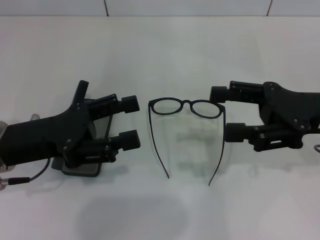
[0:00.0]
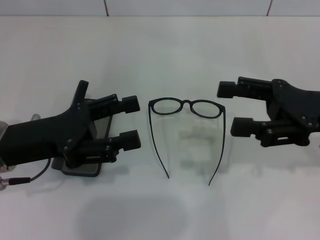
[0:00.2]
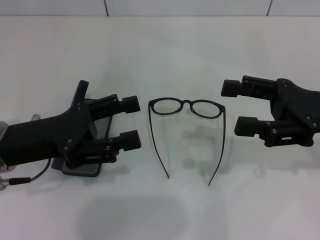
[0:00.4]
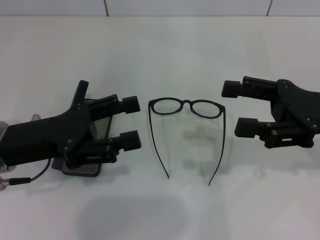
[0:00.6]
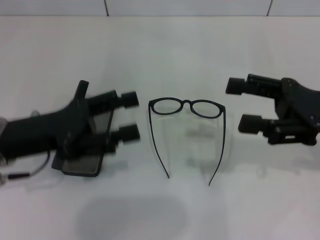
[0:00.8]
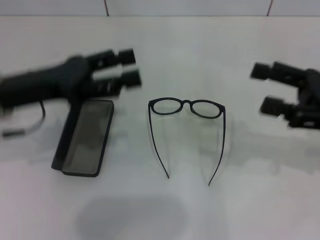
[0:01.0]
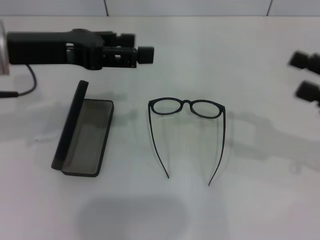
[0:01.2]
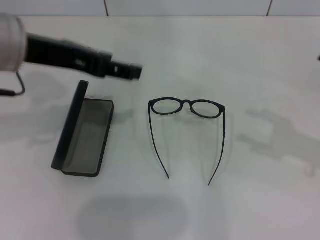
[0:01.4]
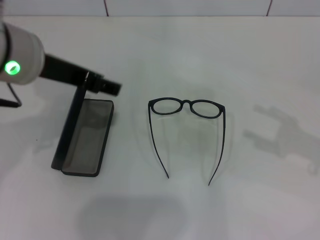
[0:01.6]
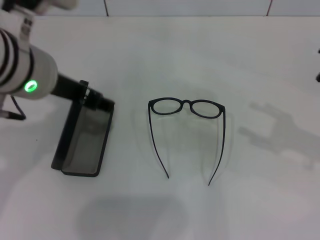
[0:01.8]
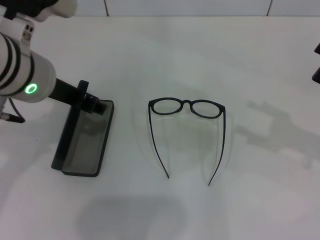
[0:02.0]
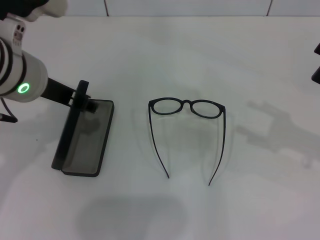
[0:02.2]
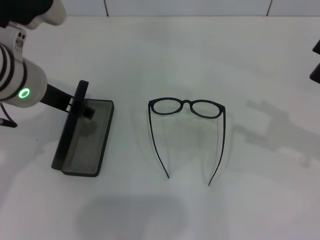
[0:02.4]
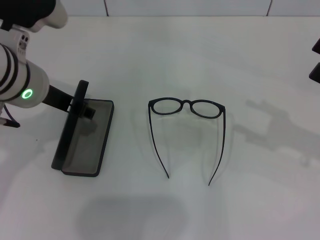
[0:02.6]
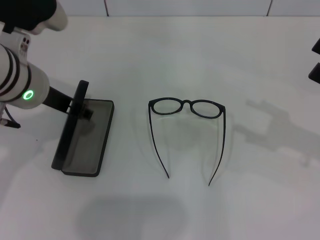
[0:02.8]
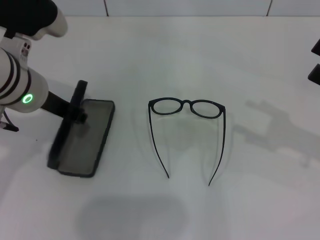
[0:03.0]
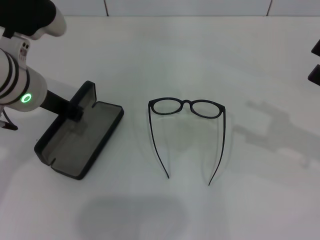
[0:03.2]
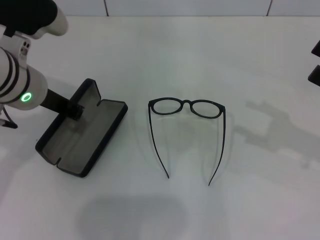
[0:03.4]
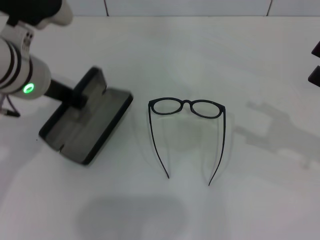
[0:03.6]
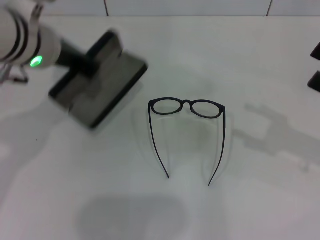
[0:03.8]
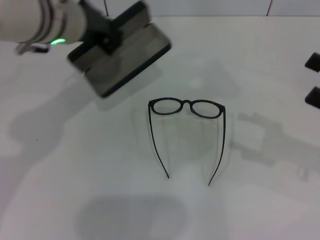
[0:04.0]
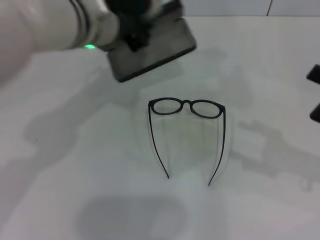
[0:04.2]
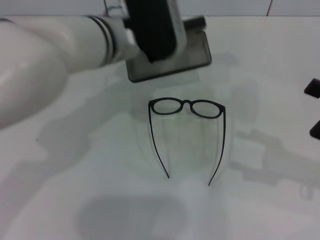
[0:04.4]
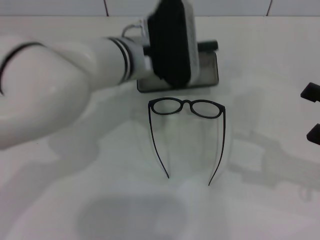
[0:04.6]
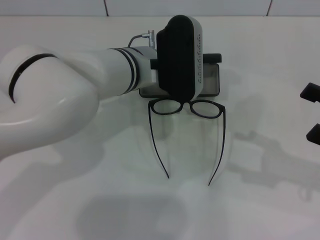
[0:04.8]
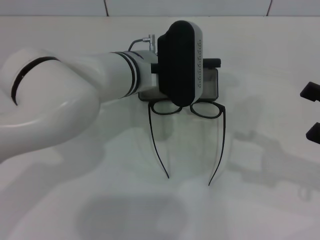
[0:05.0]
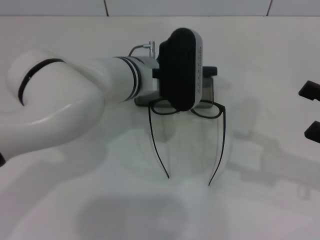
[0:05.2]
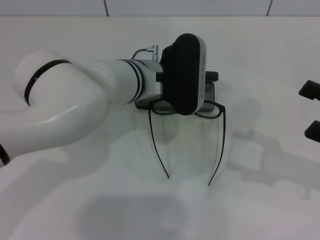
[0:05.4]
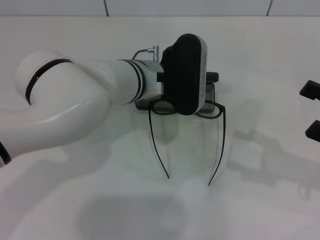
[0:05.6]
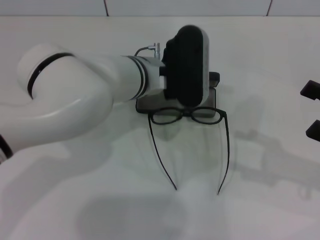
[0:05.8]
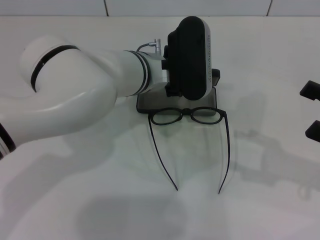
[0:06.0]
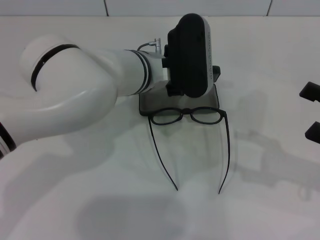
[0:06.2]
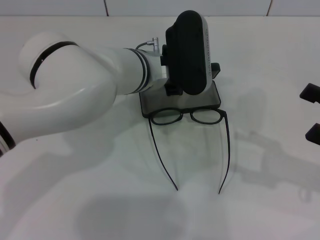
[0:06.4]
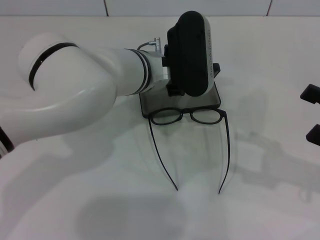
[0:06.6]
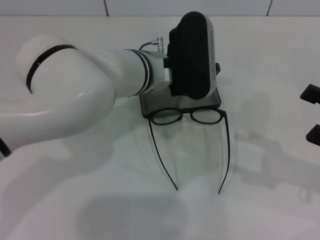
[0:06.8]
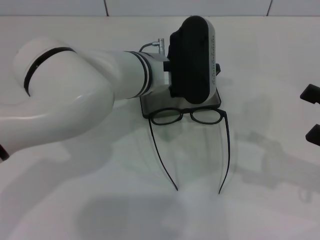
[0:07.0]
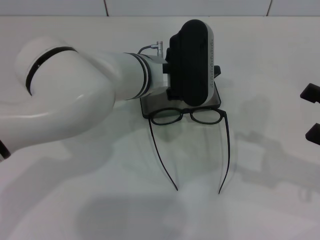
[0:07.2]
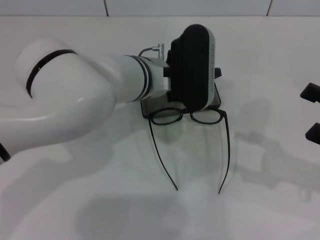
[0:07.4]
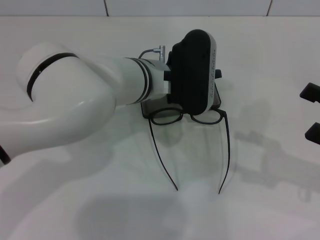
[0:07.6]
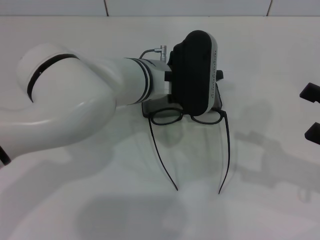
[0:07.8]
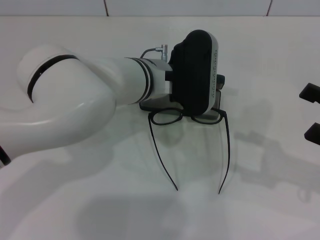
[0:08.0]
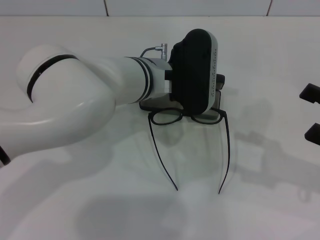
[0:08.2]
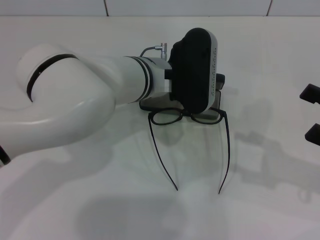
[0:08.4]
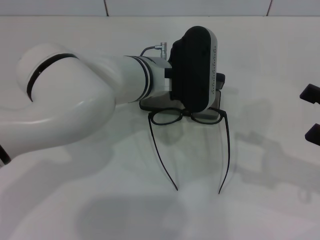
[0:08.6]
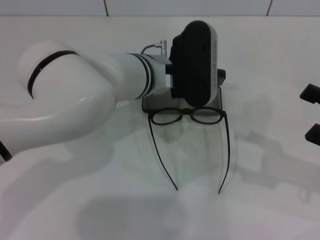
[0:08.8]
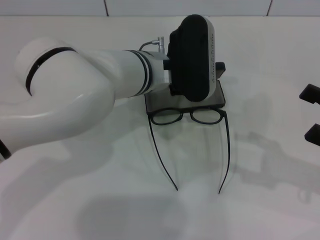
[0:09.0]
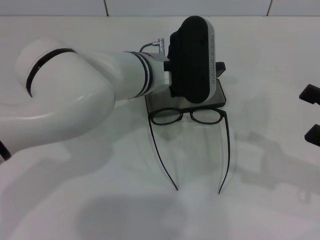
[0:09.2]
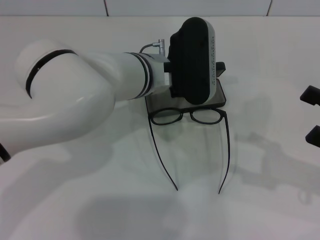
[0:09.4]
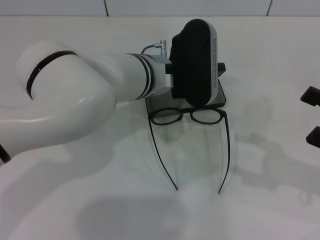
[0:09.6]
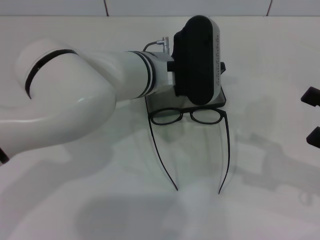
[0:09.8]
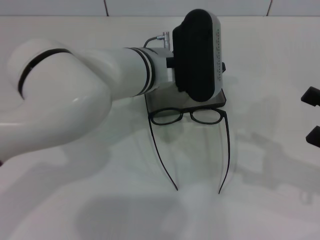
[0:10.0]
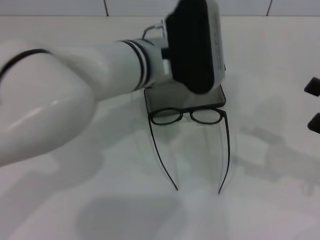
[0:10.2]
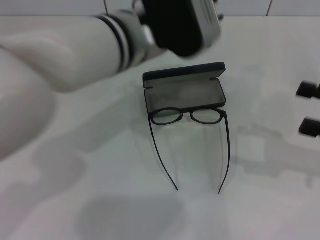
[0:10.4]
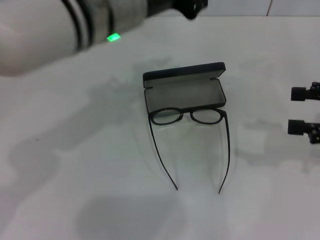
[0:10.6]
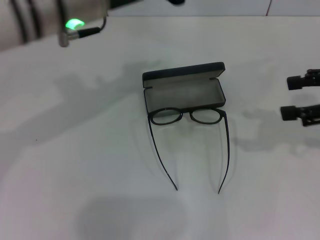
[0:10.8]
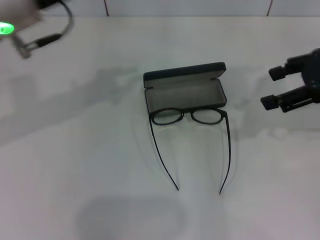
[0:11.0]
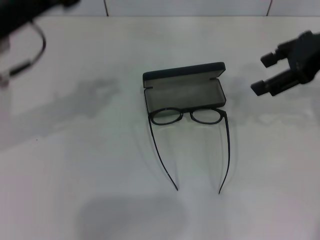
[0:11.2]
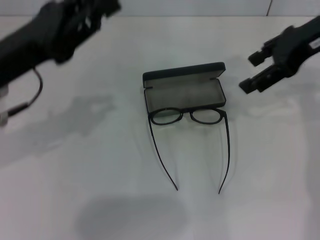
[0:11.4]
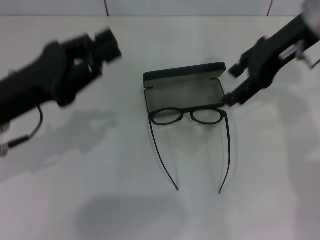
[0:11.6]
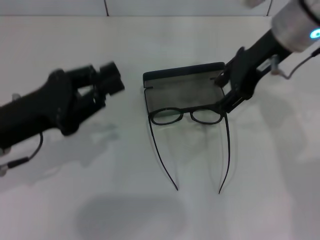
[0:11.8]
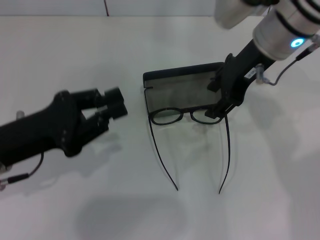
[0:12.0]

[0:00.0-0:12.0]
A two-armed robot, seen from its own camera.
Step, 0:00.0 to 0:03.2: Grab the glasses case with your left hand.
Step, 0:03.4 to 0:06.8: Place the glasses case in the center of the table with your left hand.
0:00.0 to 0:01.6: The left gripper goes roughly 15 cm upward, to the right and forward. The right gripper moves to the right, some 10 cm.
0:01.6 to 0:03.0: The left gripper goes some 5 cm downward, and closes its fingers.
0:03.0 to 0:04.4: The left gripper goes roughly 10 cm to the right, and closes up.
0:04.4 to 0:06.0: The left gripper ends up some 5 cm from where it was.
0:06.0 to 0:09.0: The grippers make only small movements.
0:09.0 to 0:10.4: The left gripper shifts some 10 cm upward.
0:10.4 to 0:12.0: The left gripper heads to the left, downward and backward, covering roughly 25 cm; the right gripper moves to the left and forward, some 25 cm.

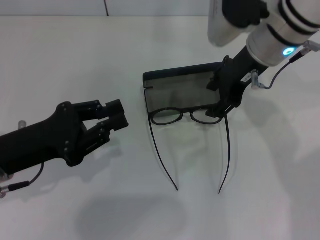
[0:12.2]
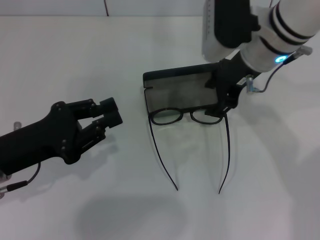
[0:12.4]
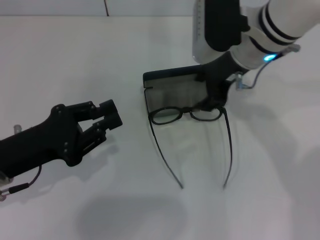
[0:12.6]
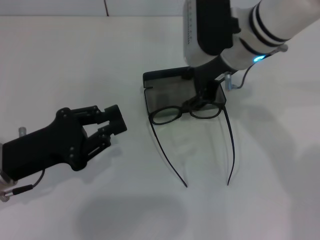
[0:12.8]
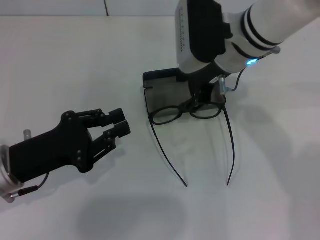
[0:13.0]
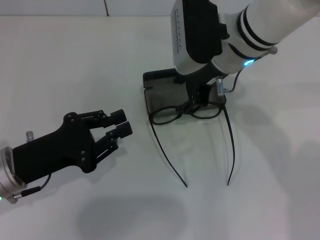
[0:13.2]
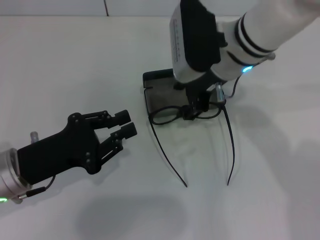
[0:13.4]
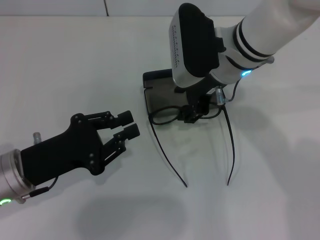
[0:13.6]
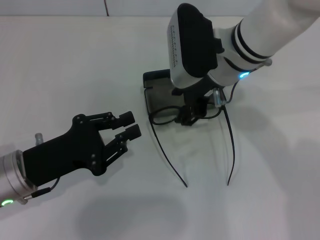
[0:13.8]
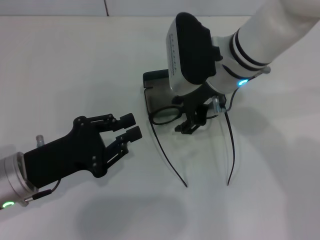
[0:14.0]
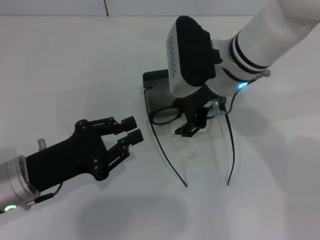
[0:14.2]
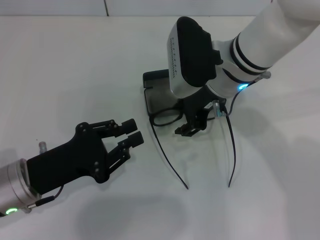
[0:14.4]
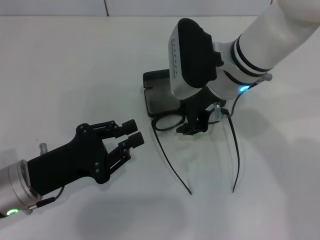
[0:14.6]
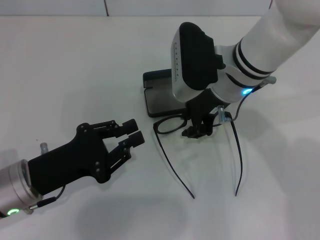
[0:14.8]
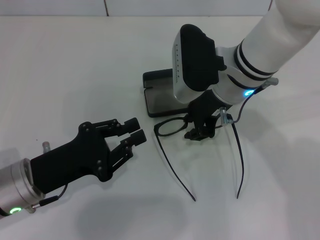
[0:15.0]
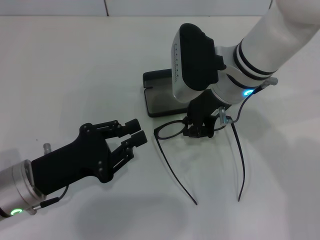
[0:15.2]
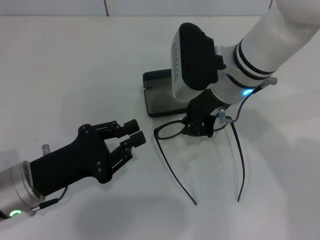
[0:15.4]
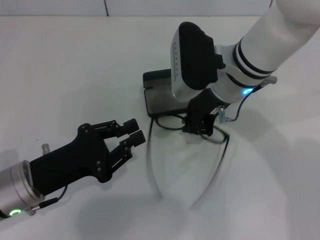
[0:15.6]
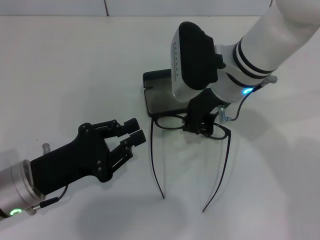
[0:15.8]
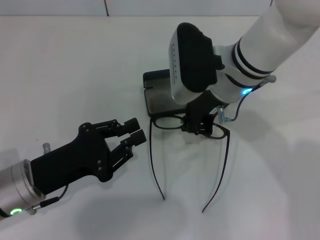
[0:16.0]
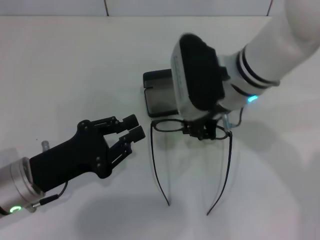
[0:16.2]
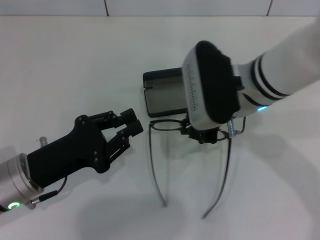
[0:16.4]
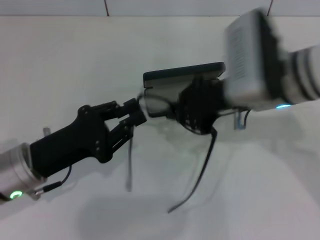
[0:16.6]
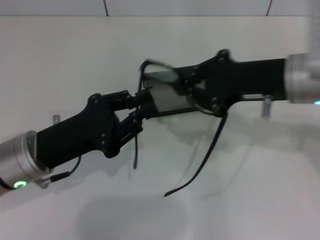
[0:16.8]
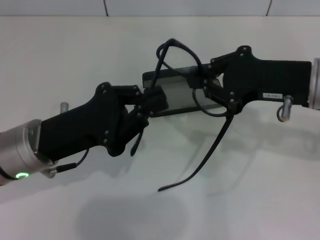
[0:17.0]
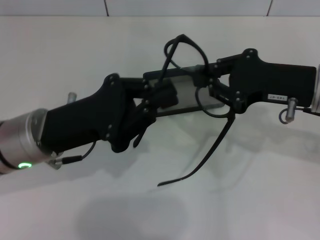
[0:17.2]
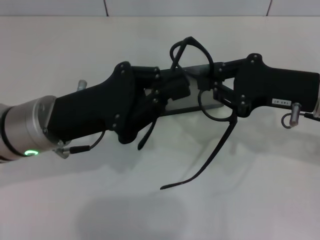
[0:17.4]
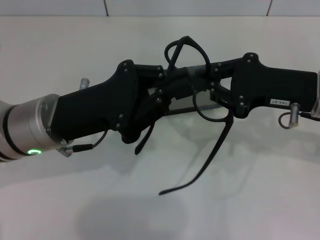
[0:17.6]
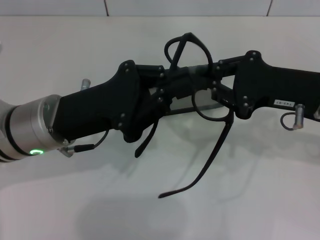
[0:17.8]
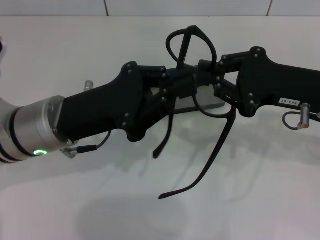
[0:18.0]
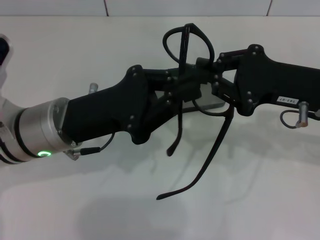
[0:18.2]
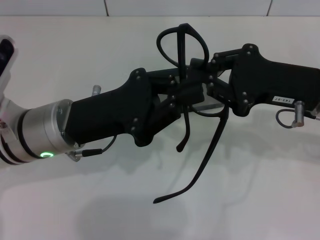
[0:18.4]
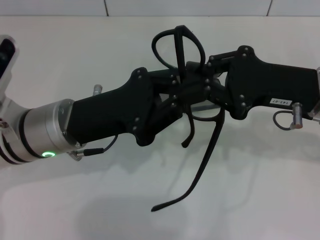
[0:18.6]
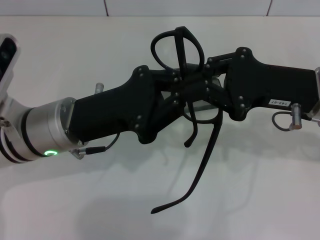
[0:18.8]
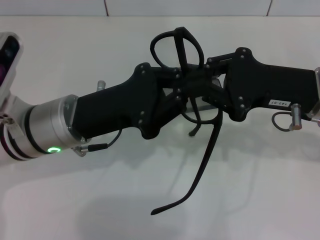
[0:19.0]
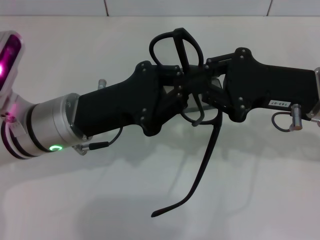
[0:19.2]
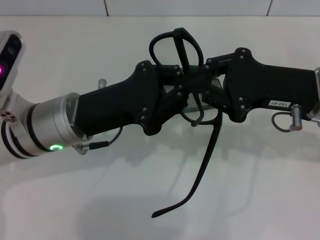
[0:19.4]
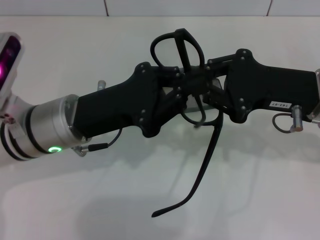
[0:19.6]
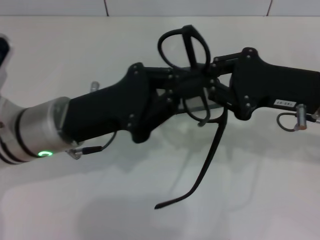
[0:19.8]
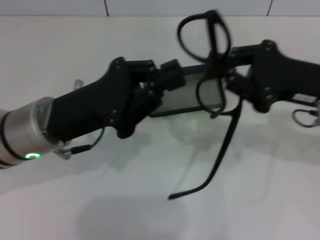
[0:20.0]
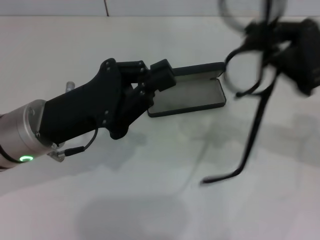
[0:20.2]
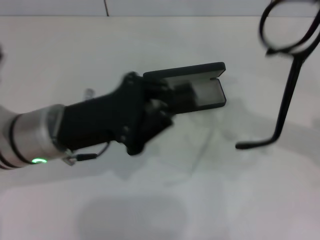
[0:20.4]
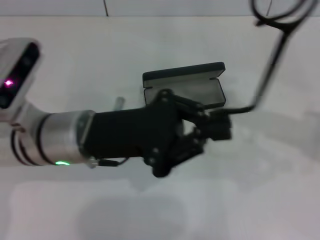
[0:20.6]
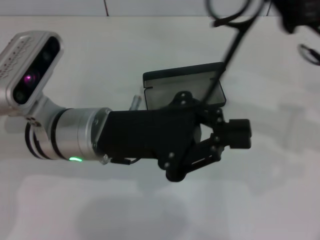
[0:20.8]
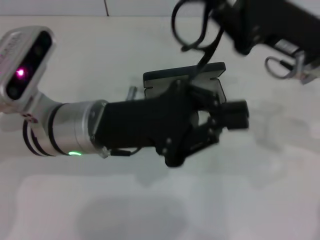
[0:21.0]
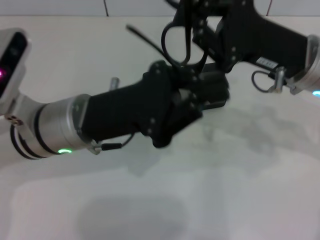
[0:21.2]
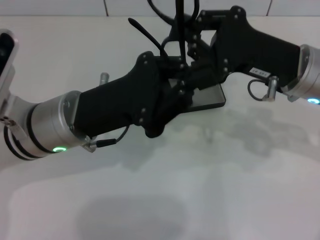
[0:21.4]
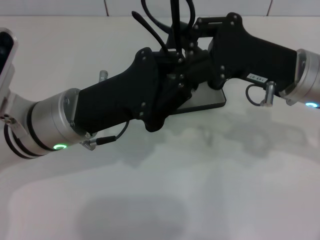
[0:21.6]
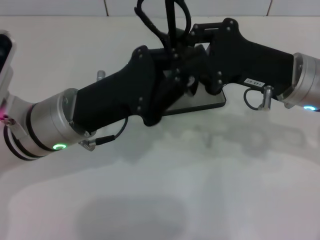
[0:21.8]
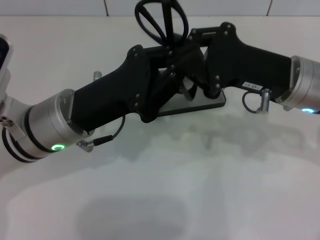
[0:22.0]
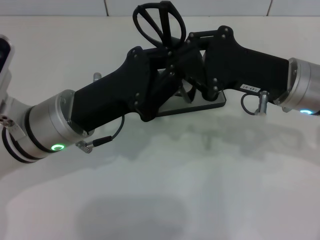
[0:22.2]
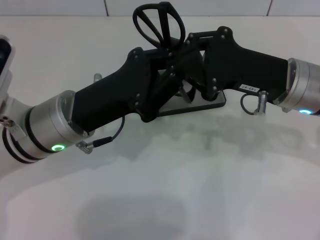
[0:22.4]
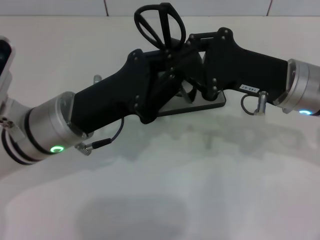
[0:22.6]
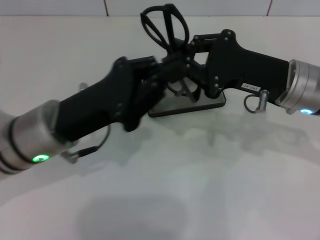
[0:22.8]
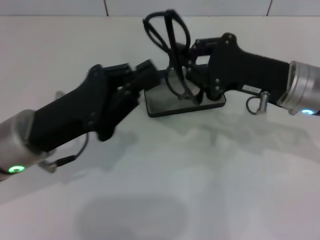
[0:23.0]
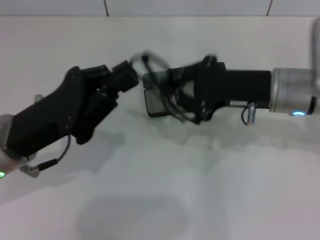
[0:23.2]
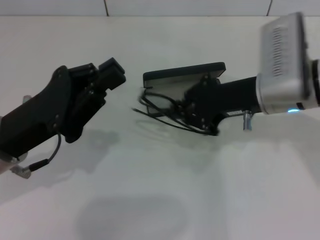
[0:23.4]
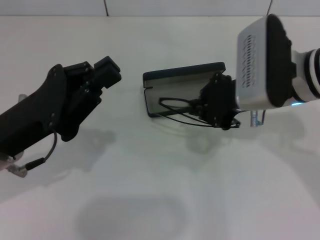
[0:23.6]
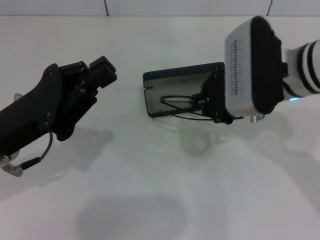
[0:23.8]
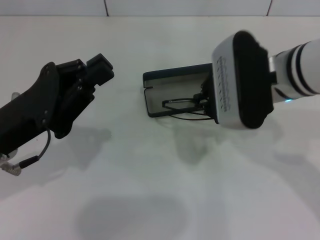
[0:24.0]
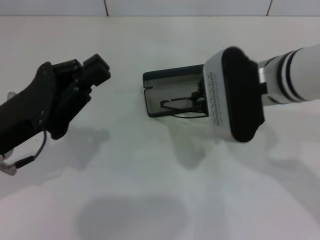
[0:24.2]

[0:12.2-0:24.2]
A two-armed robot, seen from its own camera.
Step, 0:12.2 to 0:15.4: Grab the eyeglass frame with your right hand.
Step, 0:15.6 to 0:22.2: Fold the frame with your left hand.
0:12.2 to 0:13.8: The right gripper changes place by roughly 5 cm.
0:13.8 to 0:15.2: The right gripper closes.
0:15.2 to 0:16.6: The right gripper moves to the right, approximately 5 cm.
0:16.6 to 0:18.2: The right gripper is displaced to the right by some 10 cm. Meanwhile the left gripper moves to the right and upward, approximately 10 cm.
0:18.2 to 0:19.8: There are only small adjustments of the grippers.
0:19.8 to 0:21.2: The right gripper goes to the right and returns, some 5 cm each way.
0:22.6 to 0:24.2: The two grippers go some 5 cm to the left.
